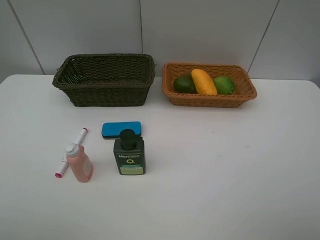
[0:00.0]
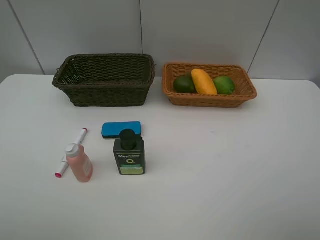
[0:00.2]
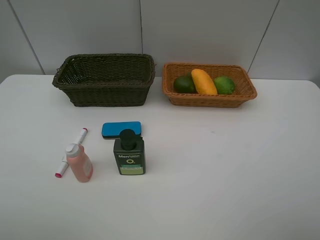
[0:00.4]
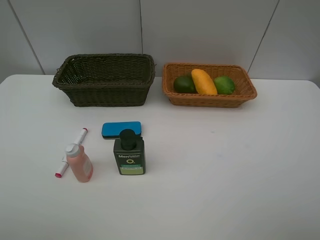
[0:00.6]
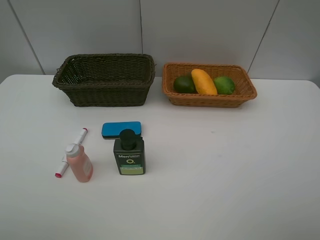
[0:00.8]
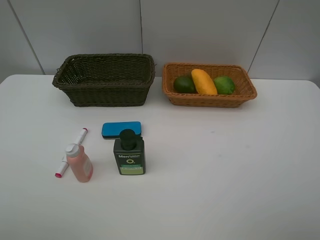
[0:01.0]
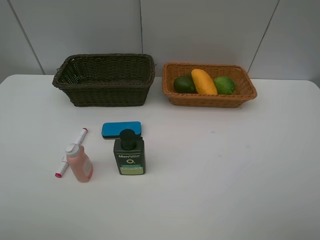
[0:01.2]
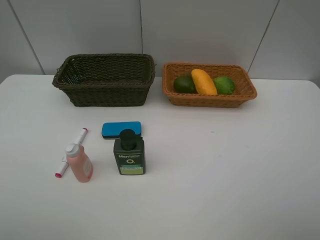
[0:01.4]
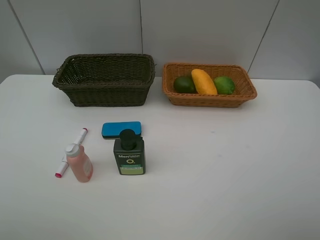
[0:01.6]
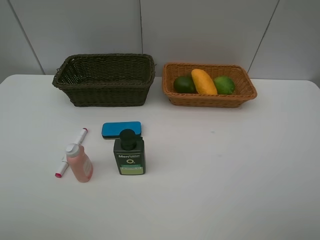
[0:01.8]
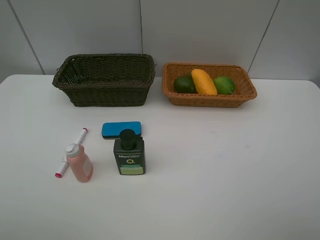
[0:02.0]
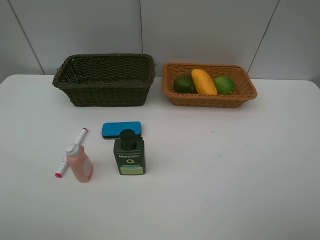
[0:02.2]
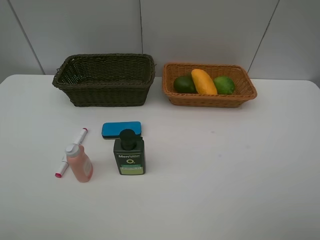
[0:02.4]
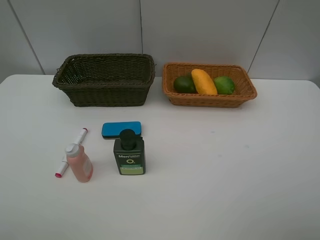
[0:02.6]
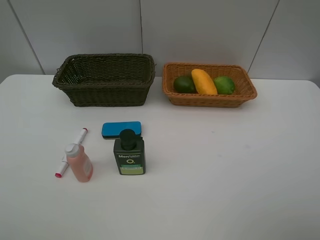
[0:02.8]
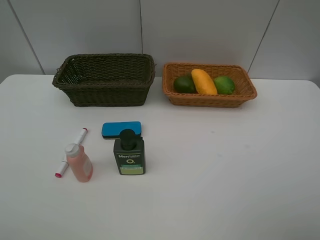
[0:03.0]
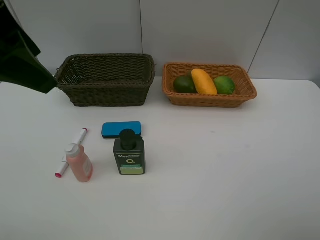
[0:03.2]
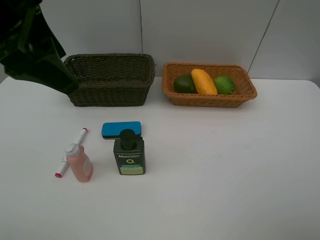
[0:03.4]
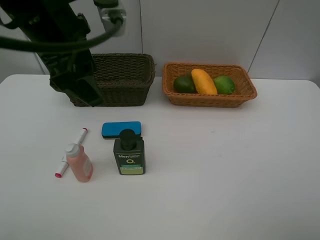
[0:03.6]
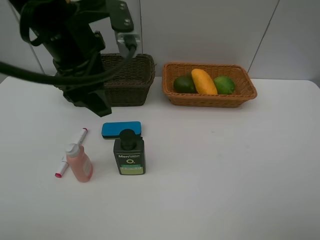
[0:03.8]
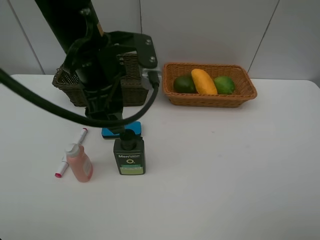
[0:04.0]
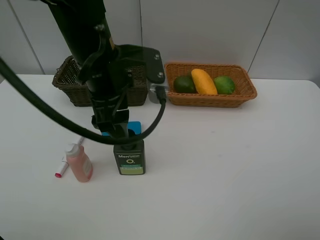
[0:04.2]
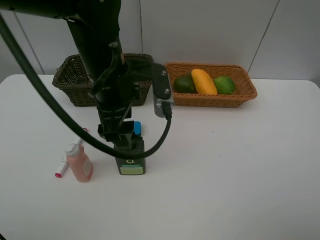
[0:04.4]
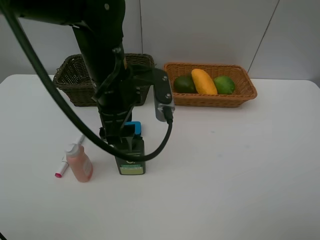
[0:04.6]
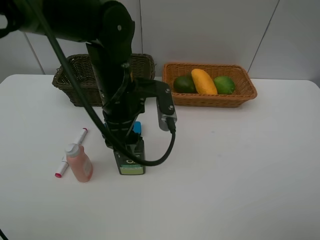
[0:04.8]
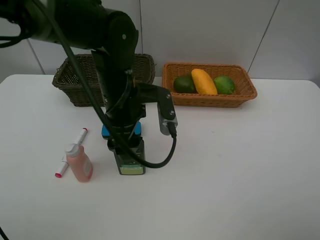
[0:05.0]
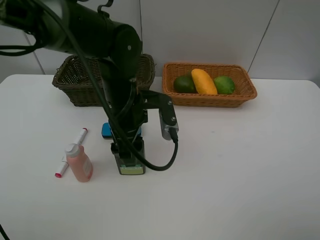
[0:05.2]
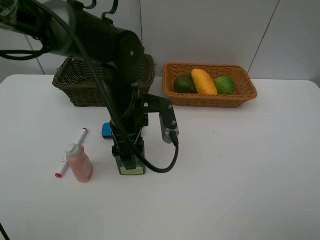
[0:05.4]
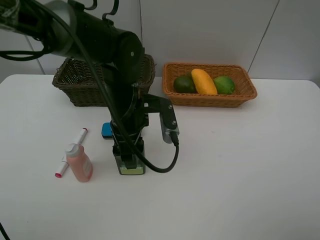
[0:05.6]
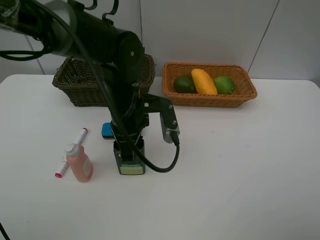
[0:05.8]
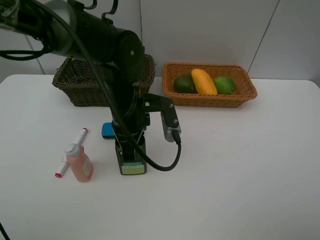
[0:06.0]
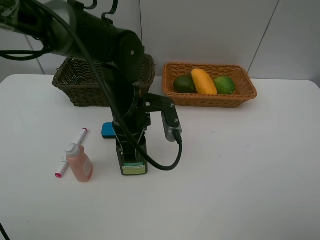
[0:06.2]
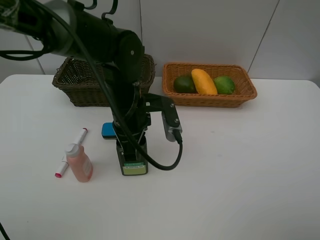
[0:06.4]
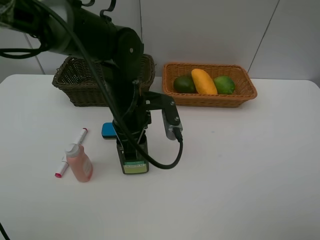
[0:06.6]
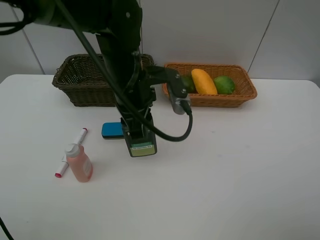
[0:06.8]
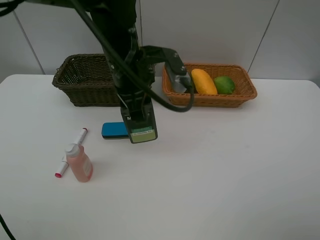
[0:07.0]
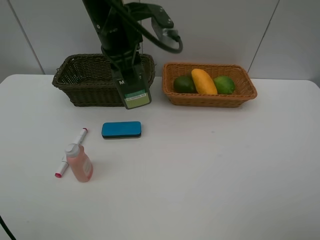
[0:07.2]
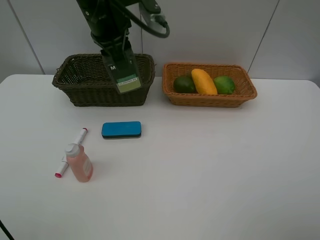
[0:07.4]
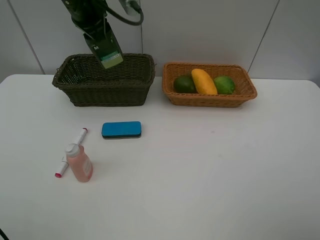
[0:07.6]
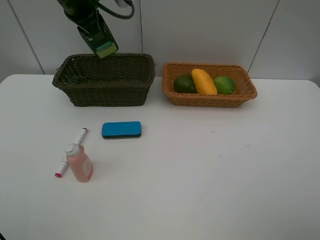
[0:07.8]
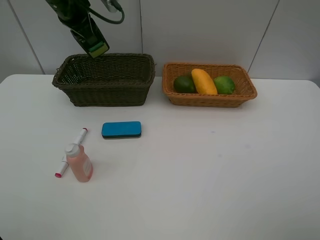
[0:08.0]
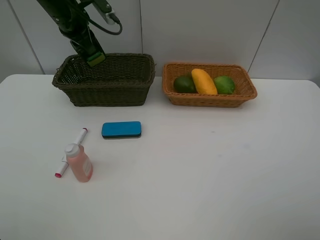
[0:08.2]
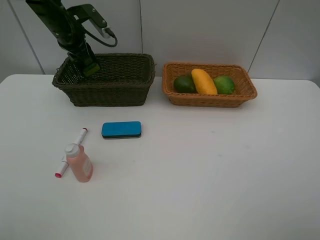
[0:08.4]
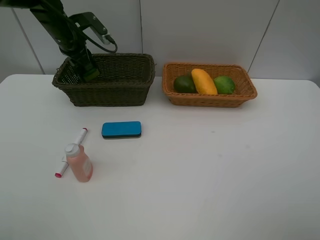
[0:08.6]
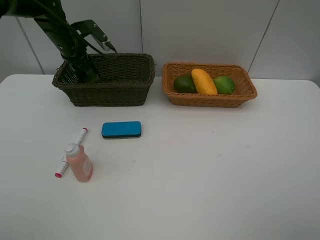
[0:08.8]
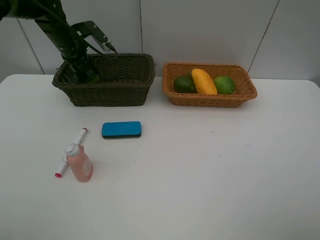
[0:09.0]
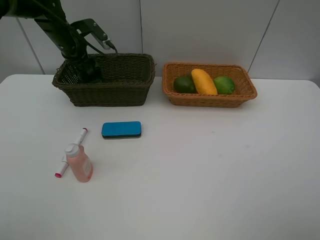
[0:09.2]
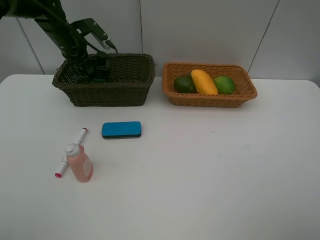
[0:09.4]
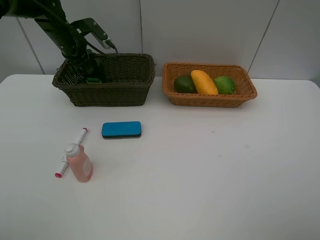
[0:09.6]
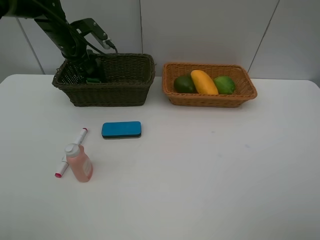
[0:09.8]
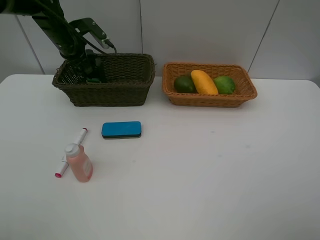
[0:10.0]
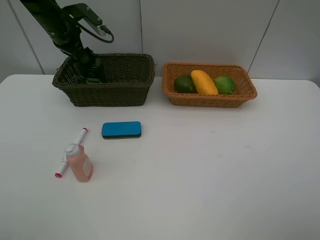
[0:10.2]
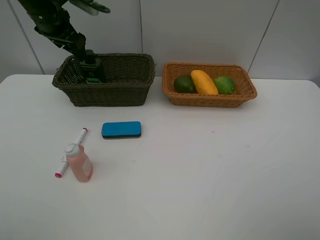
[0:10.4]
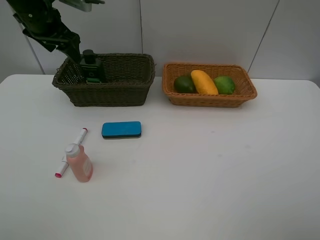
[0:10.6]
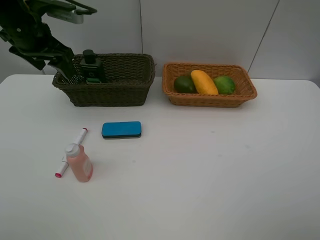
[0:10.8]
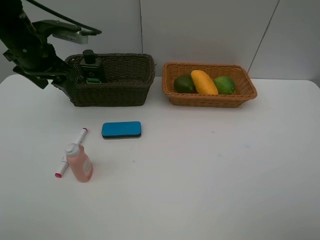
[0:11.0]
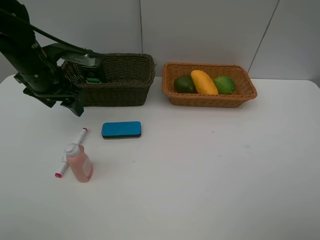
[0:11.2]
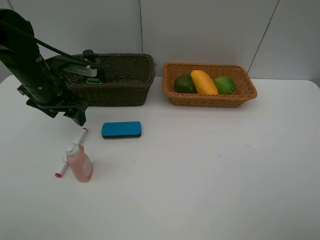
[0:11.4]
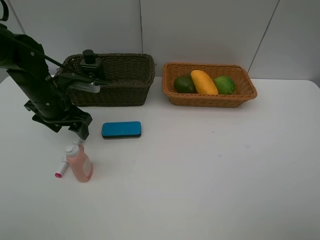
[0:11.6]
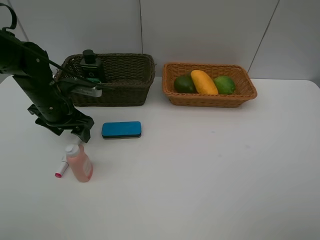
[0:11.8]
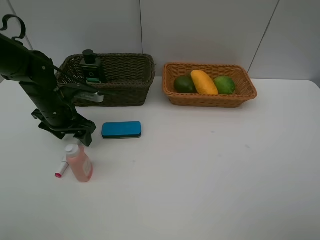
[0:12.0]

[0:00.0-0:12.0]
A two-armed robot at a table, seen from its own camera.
Task of the whole recording: Place multiple objects separately in different baskets.
Step, 0:00.0 to 0:06.6: Pick up the hard facial cleanser with left gripper.
Step, 0:06.8 to 0:10.2: Place the hard facial cleanser in the dark basket with left gripper.
0:03.0 to 0:04.4: The left gripper goes some 25 cm to the right, downward and forward.
0:04.4 to 0:06.0: The left gripper shifts approximately 5 cm downward, and closes up.
0:06.0 to 0:07.6: The left gripper goes some 20 cm upward, forward and to the left.
0:07.6 to 0:09.0: The left gripper goes about 15 cm downward, to the left and forward.
0:09.0 to 0:10.4: The left gripper moves upward, approximately 10 cm, and opens.
0:10.4 to 0:12.0: The left gripper travels downward and backward by about 20 cm.

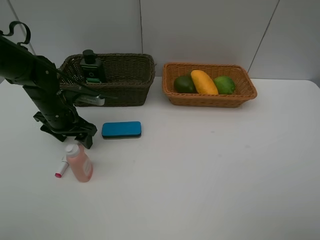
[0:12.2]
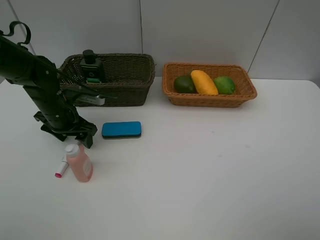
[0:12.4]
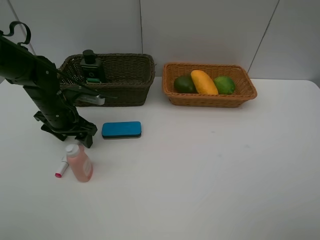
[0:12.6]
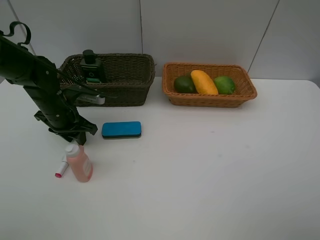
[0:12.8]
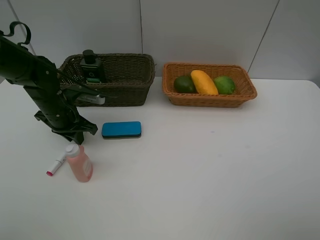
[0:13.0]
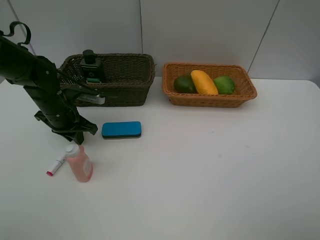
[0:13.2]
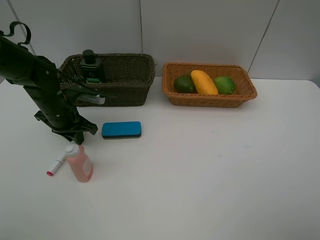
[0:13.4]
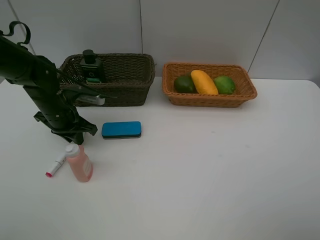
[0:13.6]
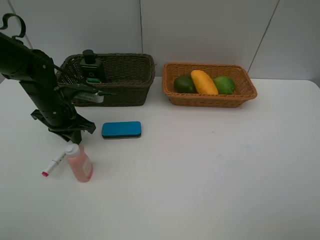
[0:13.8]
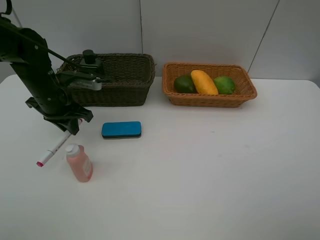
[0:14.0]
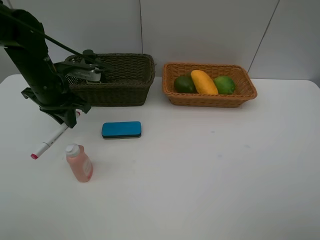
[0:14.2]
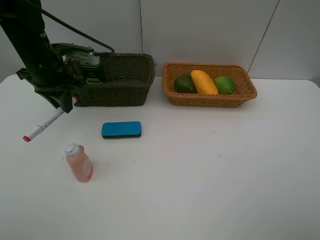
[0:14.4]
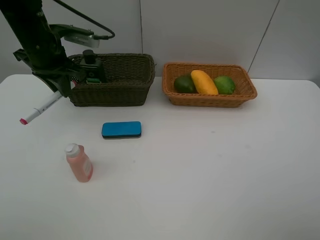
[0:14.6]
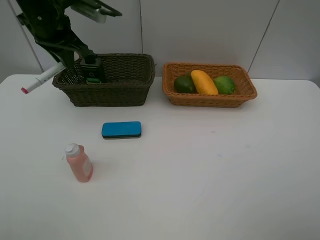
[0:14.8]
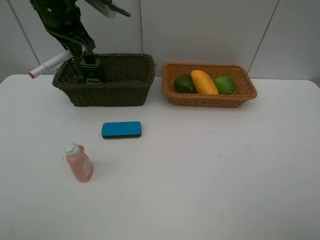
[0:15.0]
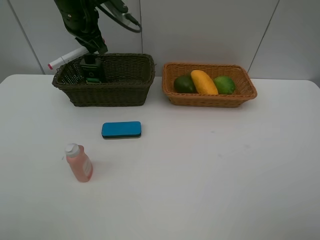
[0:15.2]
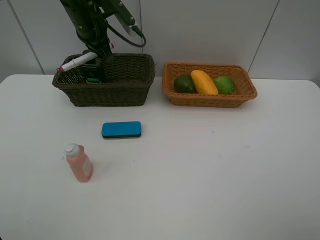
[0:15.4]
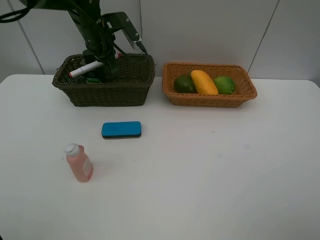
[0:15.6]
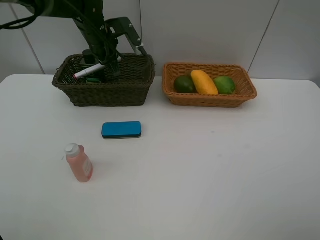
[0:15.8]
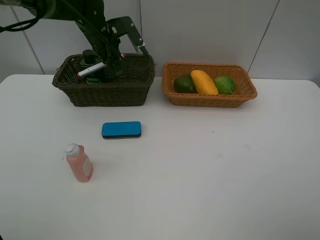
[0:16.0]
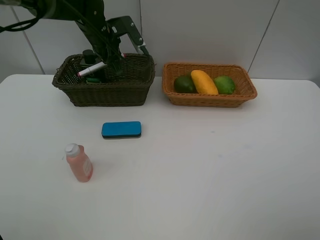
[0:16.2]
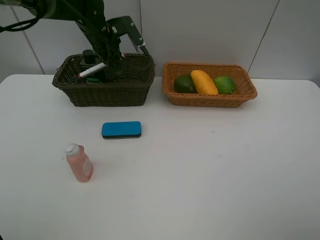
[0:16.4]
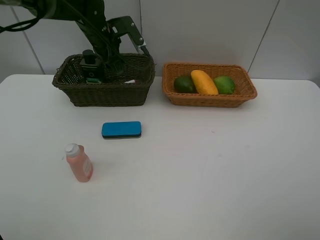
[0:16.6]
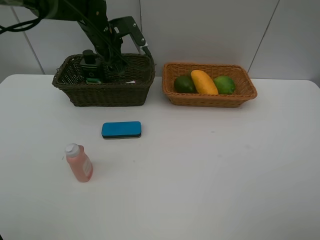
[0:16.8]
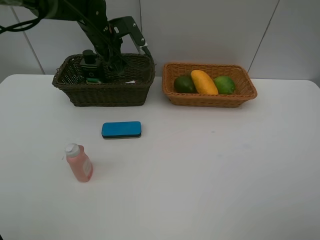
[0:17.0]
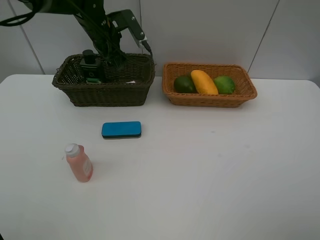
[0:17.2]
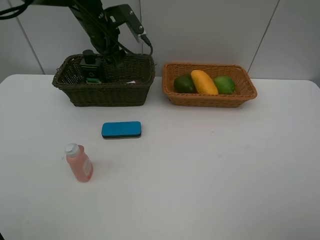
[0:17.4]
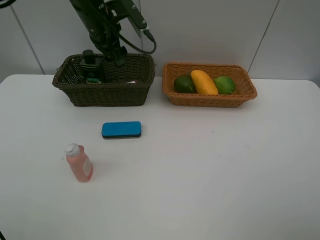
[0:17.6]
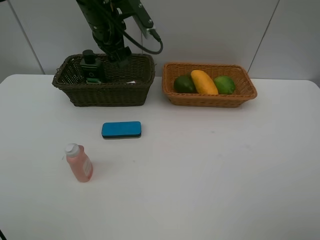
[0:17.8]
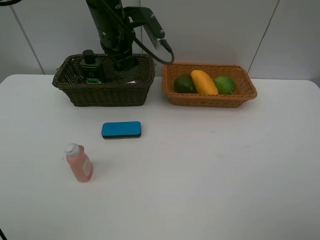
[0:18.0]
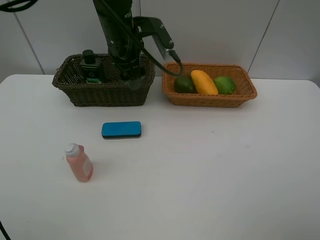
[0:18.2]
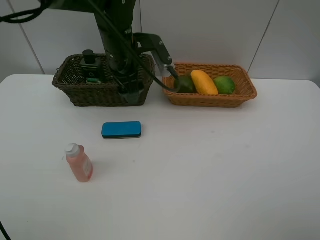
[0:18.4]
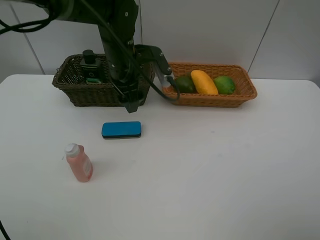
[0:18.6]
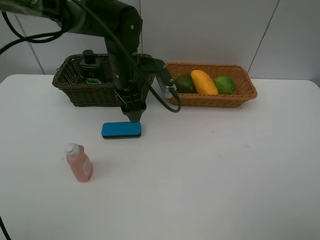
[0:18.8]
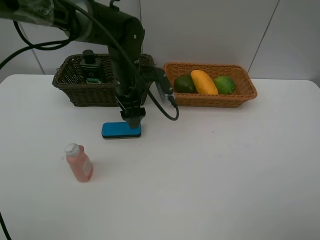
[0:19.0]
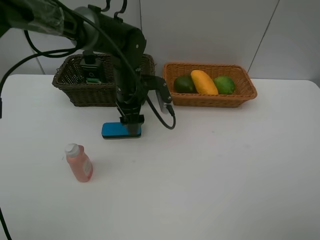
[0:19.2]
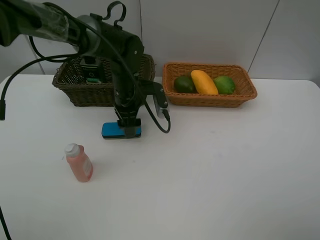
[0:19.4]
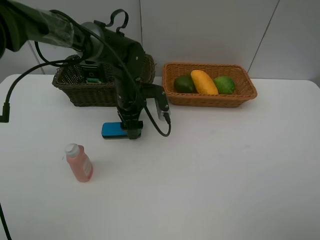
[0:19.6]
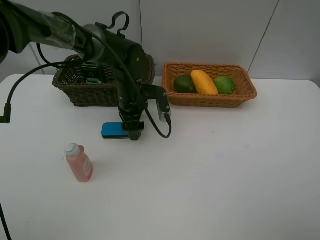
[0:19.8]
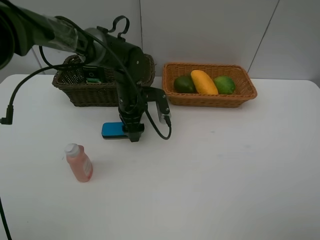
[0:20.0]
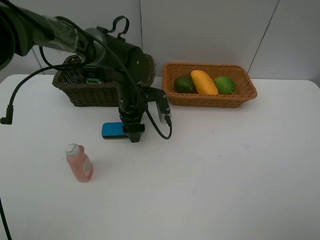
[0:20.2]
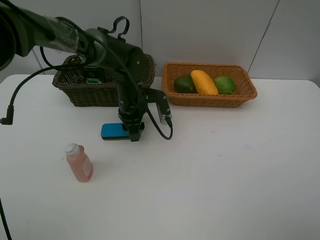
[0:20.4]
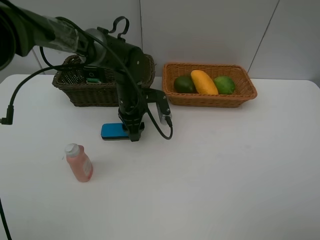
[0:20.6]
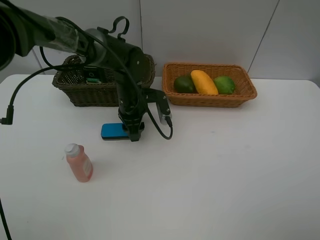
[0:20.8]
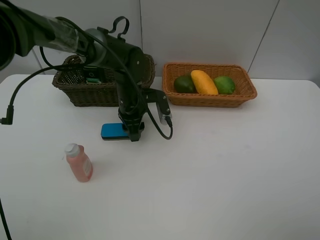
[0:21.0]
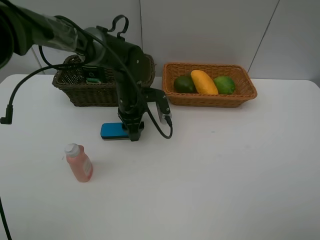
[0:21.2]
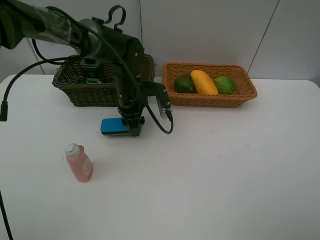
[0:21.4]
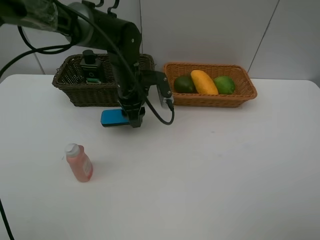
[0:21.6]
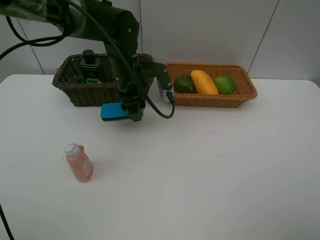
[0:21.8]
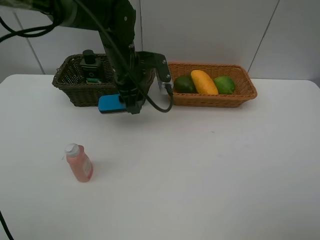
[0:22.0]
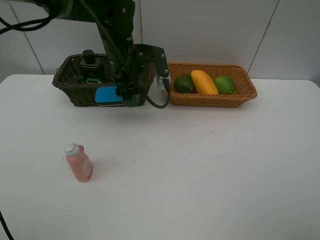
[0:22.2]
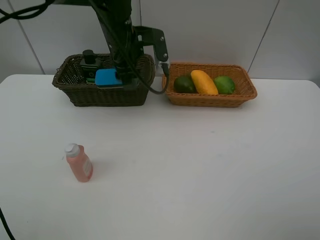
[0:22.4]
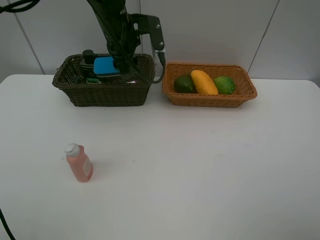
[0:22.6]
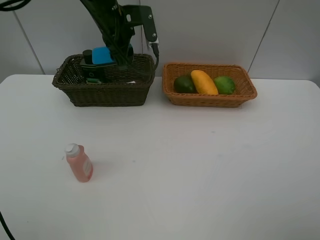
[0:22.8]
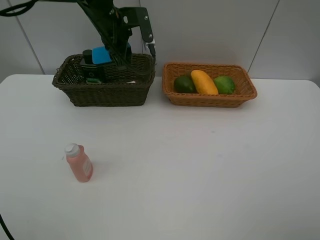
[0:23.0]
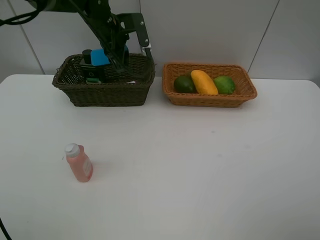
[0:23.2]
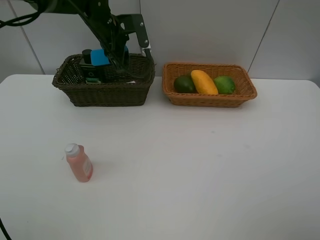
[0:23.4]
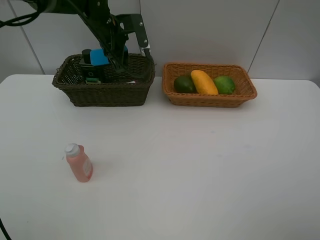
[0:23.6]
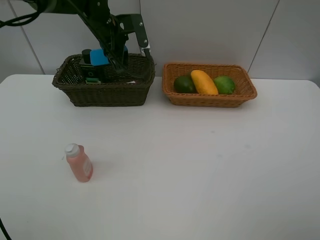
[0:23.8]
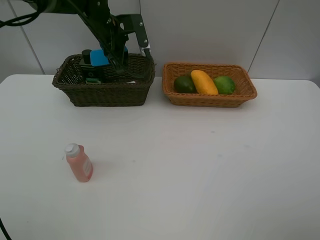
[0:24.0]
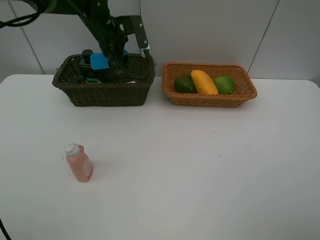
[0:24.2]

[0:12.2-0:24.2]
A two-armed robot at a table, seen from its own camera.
Task of the whole recording: Place multiple objects separately in different baskets.
Step, 0:14.0 to 0:16.6: Place the red marker in the dark basket with left gripper.
Step, 0:16.8 to 0:21.4: Pick up blackboard eraser with left gripper.
0:12.2 to 0:13.8: The left gripper closes up.
0:13.8 to 0:15.2: The left gripper goes roughly 20 cm upward, forward and to the right.
0:15.2 to 0:16.6: The left gripper travels downward by about 5 cm, and opens.
0:16.6 to 0:18.2: The left gripper travels backward and to the right by approximately 10 cm.
0:18.2 to 0:19.8: The left gripper goes some 15 cm downward.
0:19.8 to 0:21.2: The two grippers keep their place.
0:21.2 to 0:22.6: The left gripper travels upward by about 15 cm.
0:22.6 to 0:24.2: The left gripper shifts by approximately 5 cm.
